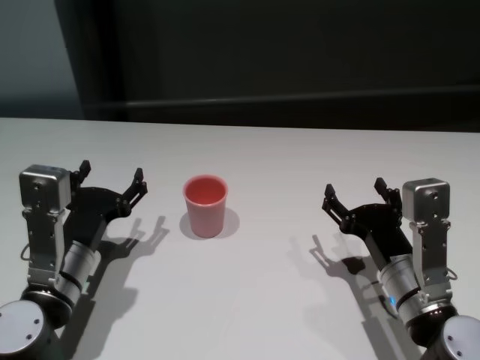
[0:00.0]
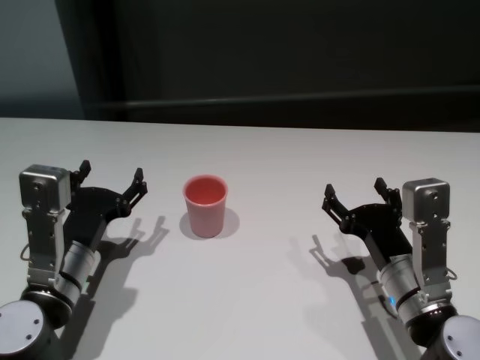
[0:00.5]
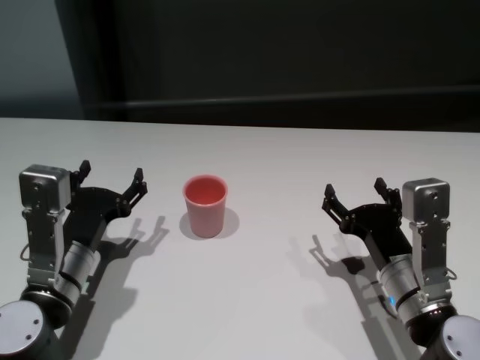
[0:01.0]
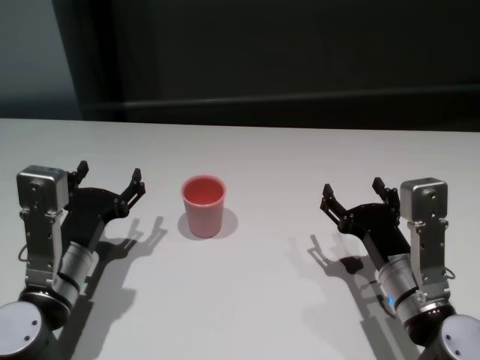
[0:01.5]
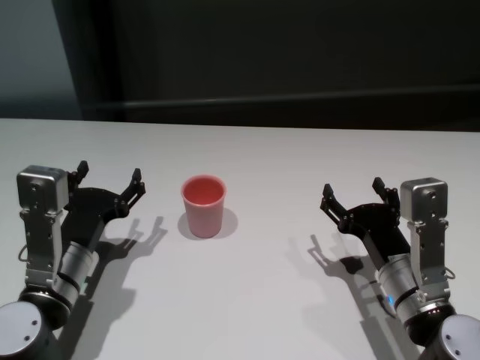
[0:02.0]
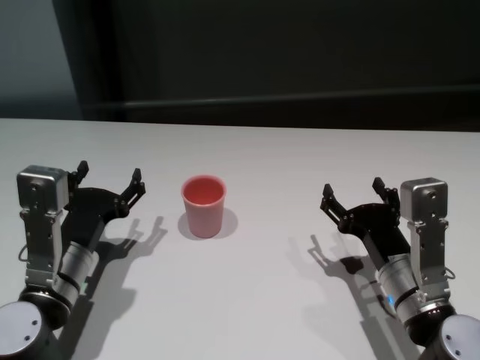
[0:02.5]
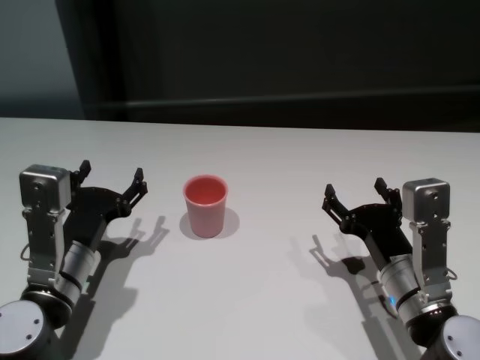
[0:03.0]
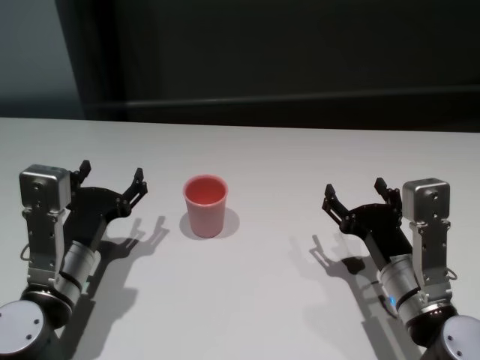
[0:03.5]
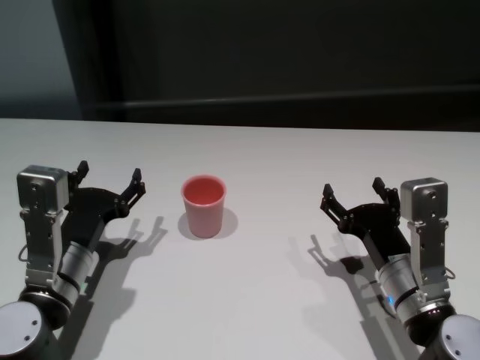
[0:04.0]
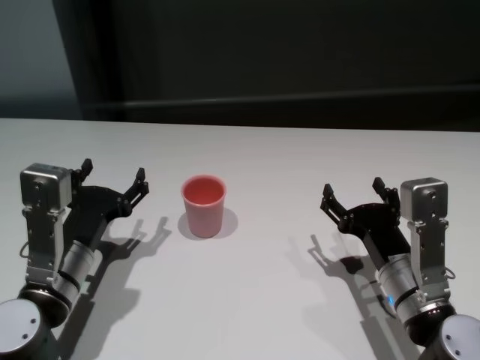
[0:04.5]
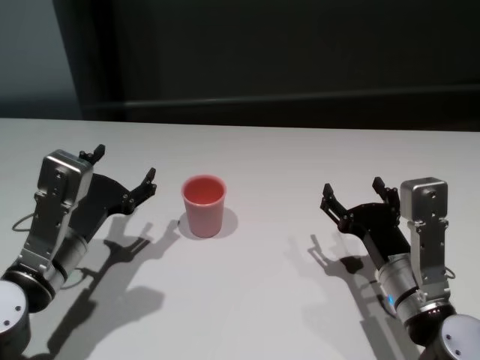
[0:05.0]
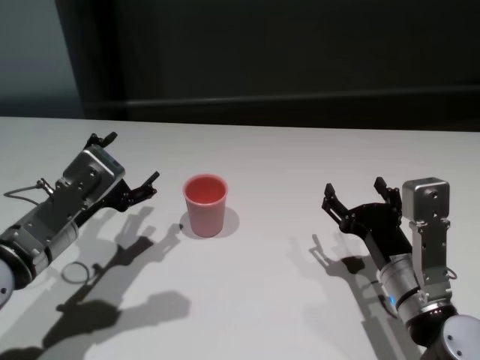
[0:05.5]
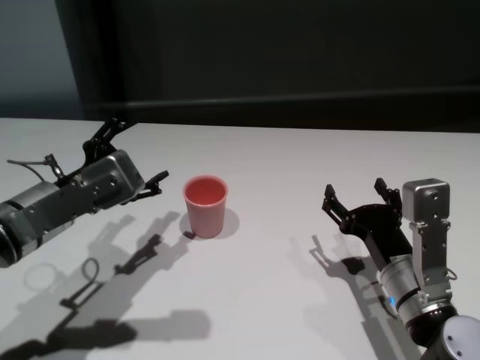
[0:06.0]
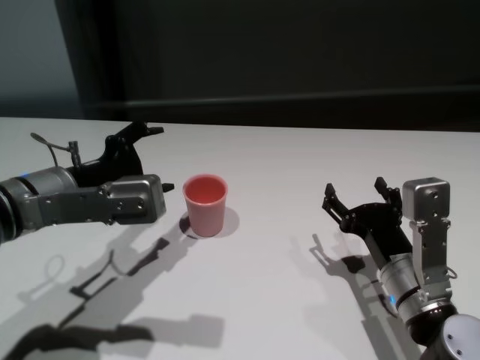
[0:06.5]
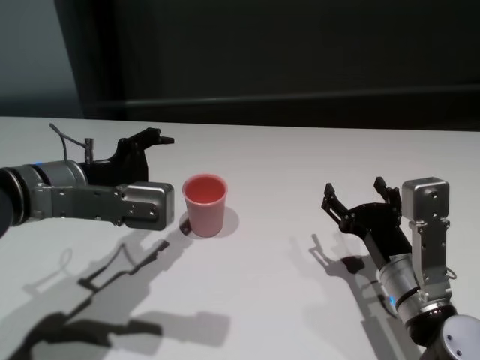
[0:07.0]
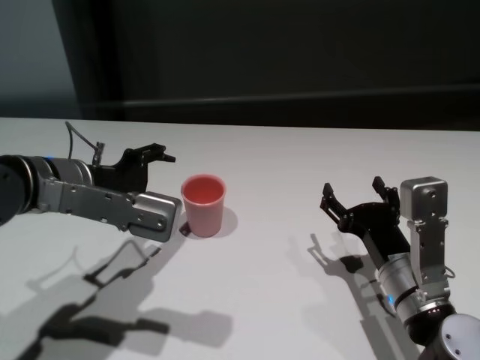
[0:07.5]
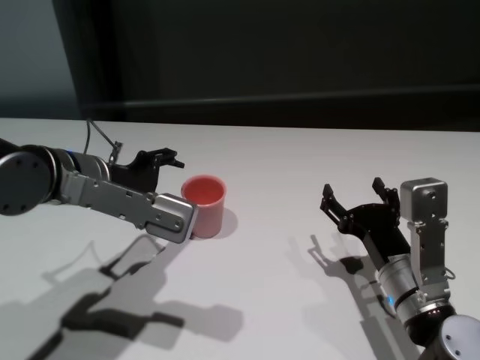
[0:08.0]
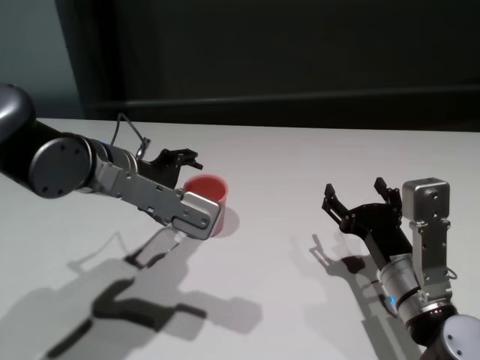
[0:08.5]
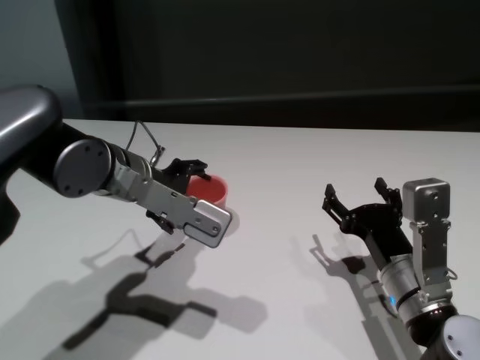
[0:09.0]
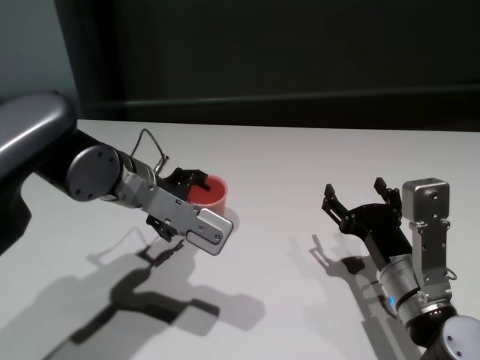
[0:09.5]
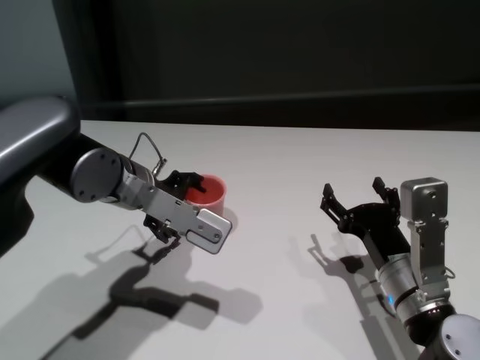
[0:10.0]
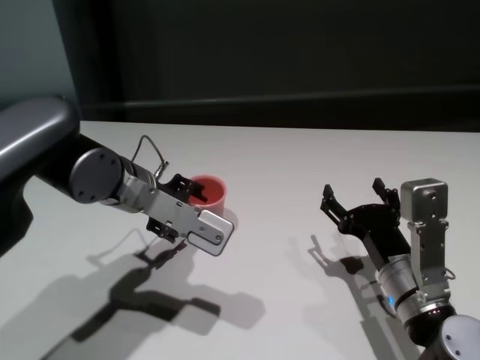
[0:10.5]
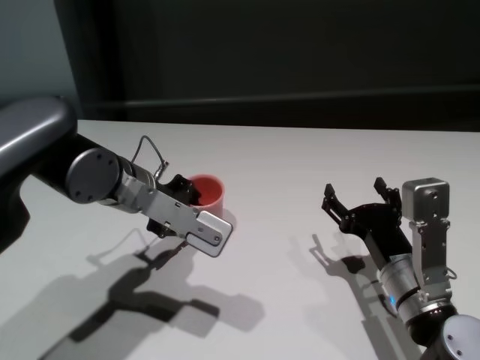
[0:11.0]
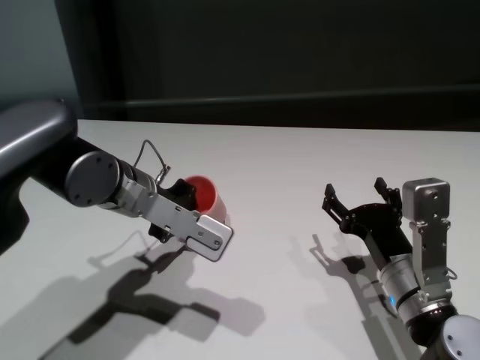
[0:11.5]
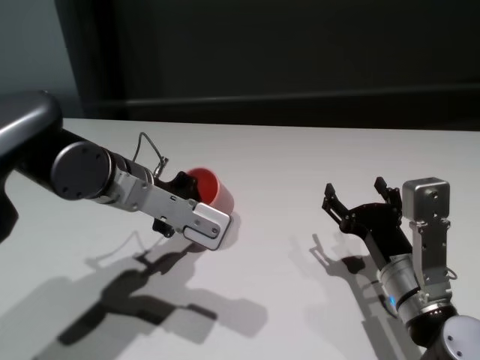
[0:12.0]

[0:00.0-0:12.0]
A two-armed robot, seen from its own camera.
Task of the whole recording: On the white table pick up the cup with one hand and transfer it to the other hand before turning it over.
Step, 0:00.0 to 0:11.0: Grasp the cup with left gripper.

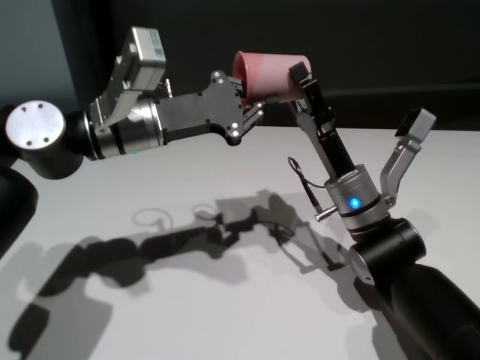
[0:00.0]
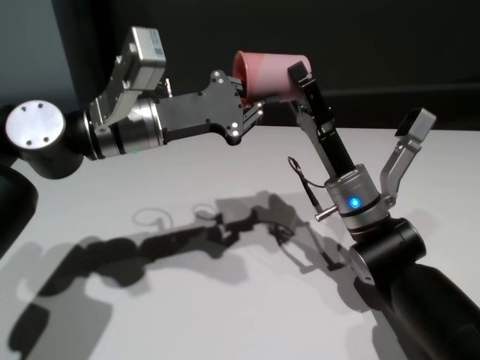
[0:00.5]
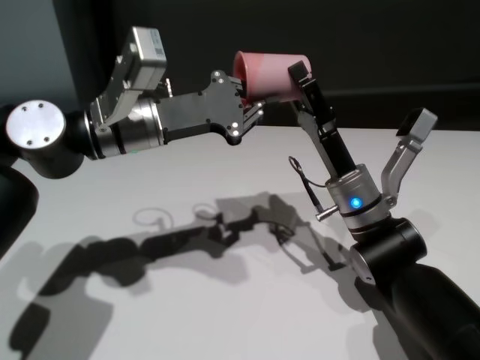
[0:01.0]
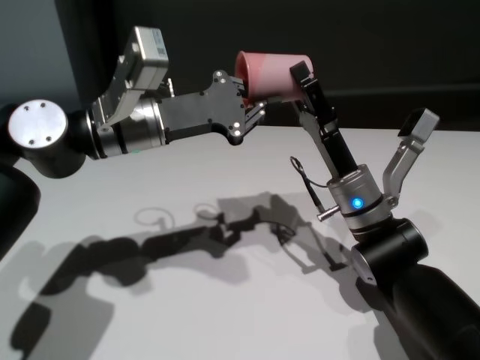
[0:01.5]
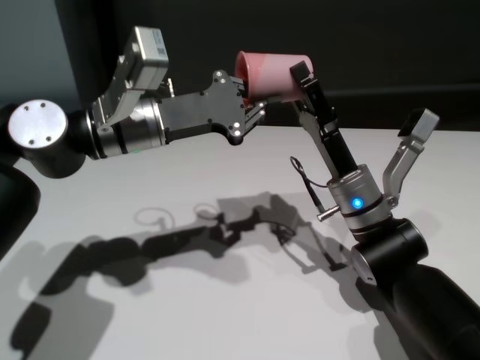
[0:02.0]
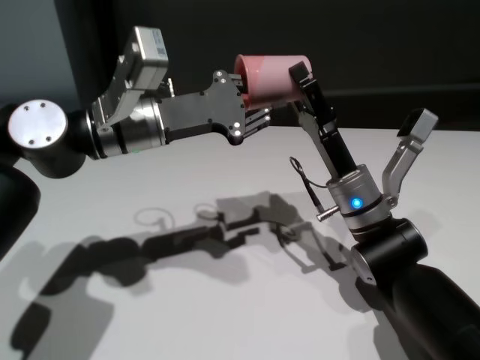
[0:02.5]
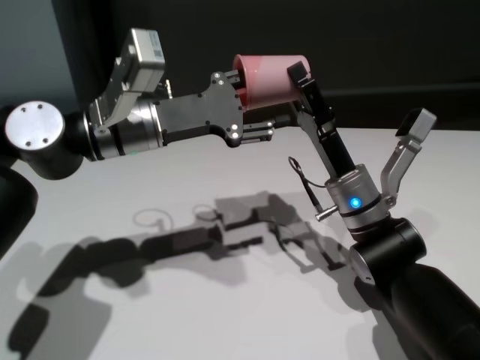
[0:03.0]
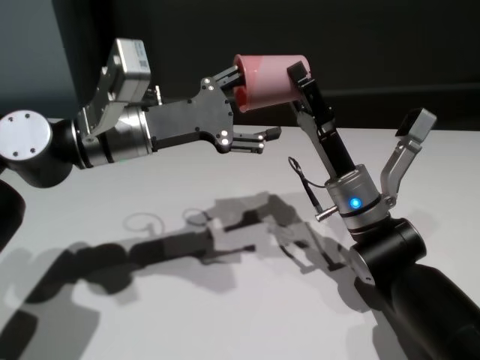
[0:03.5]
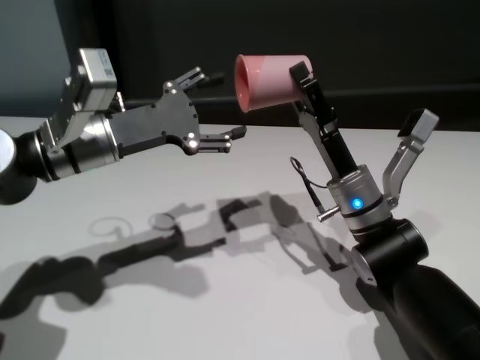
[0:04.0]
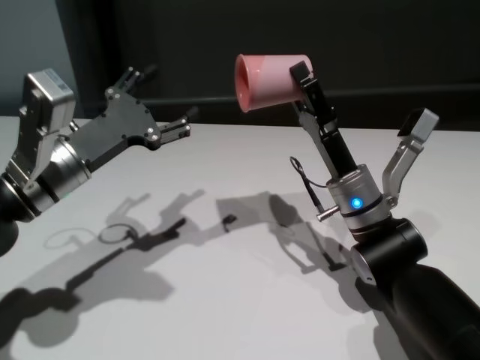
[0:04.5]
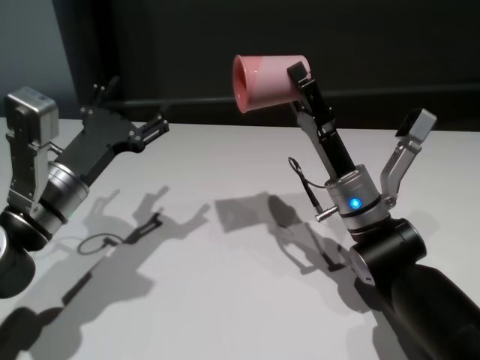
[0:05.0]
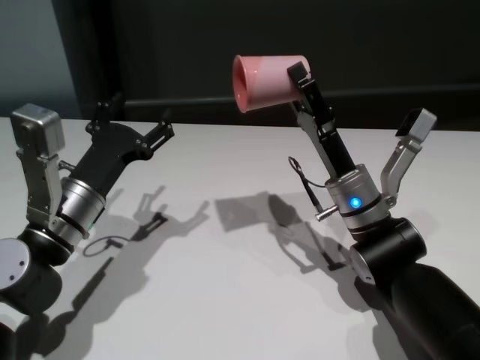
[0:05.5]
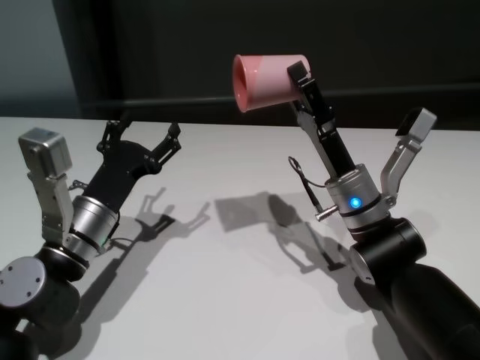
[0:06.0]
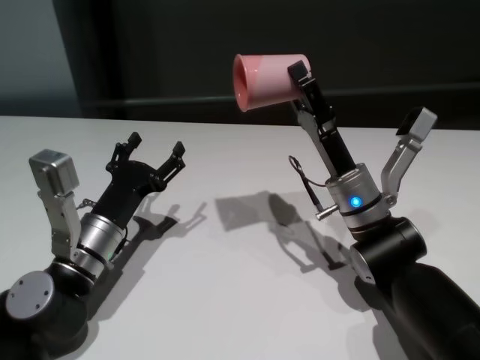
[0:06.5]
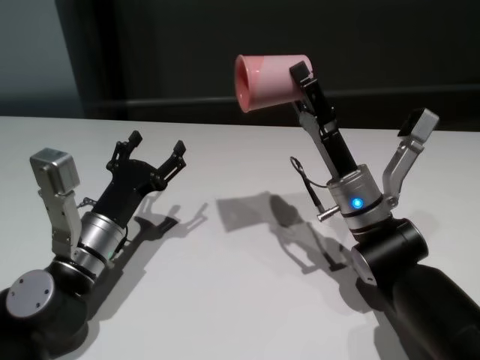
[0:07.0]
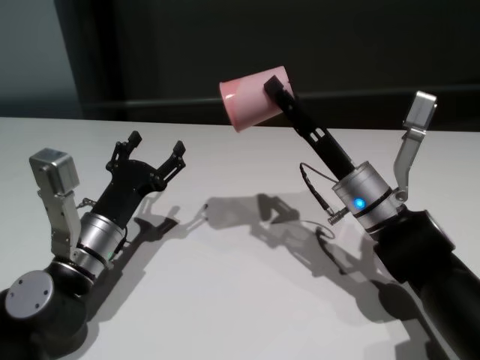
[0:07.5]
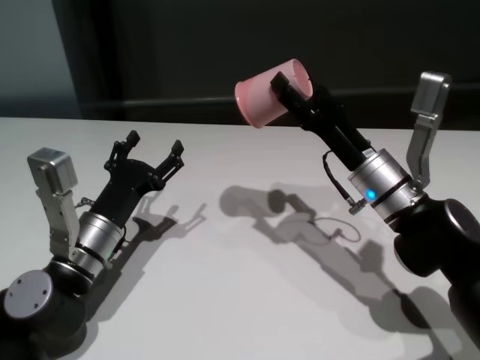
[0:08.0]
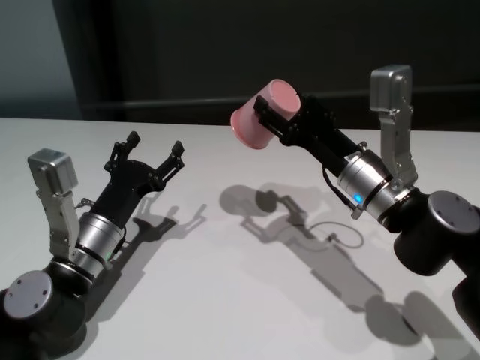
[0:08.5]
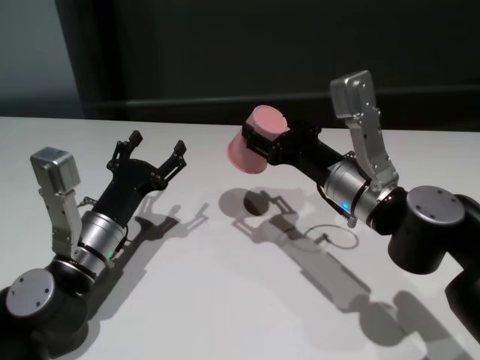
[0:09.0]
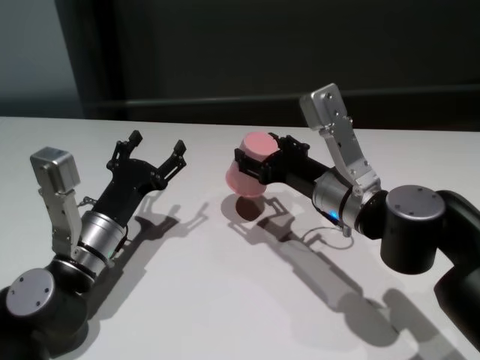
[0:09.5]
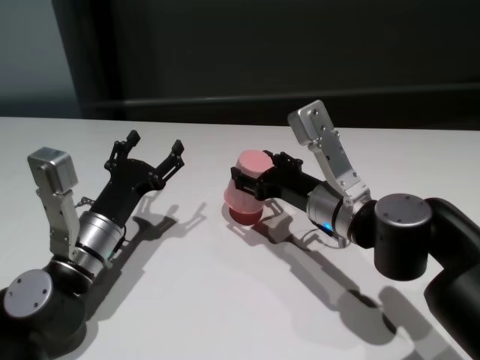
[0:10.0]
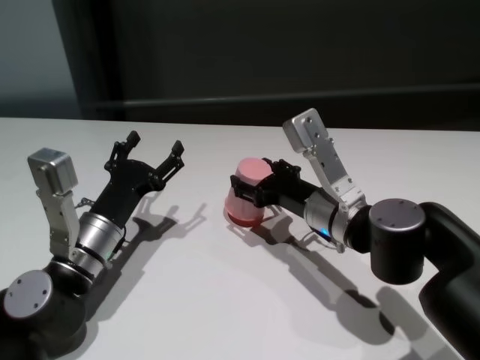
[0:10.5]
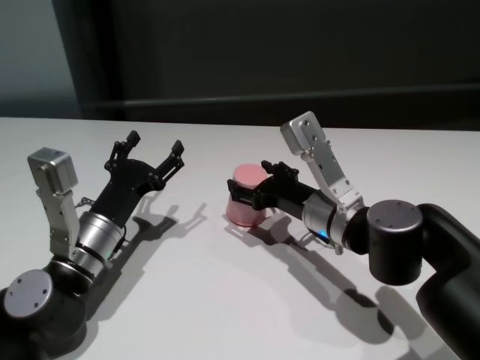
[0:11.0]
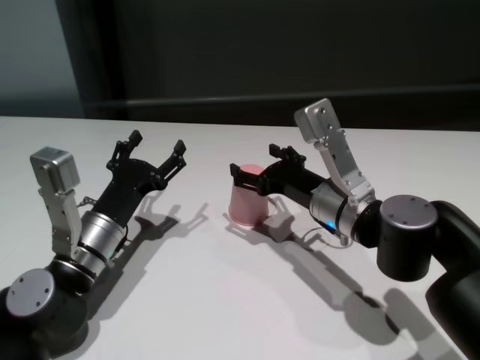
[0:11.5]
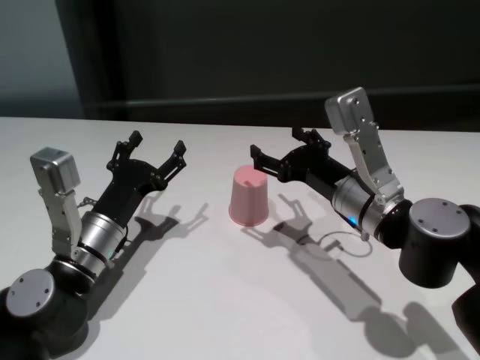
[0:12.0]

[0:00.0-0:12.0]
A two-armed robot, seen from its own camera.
Task of the whole recording: On the white table pick up the cup with one hand and transfer it to the other hand before turning it over.
Step, 0:00.0 to 0:03.5: Pass the cup to the right gripper.
Step, 0:04.5 to 0:11.5: Place the cup on the table with right gripper.
